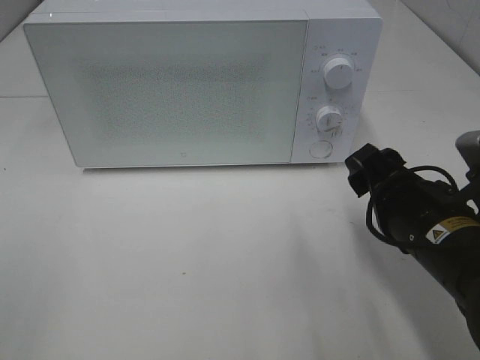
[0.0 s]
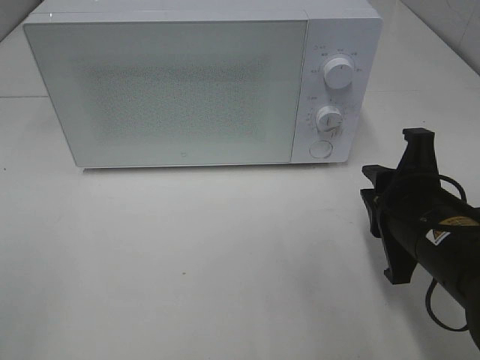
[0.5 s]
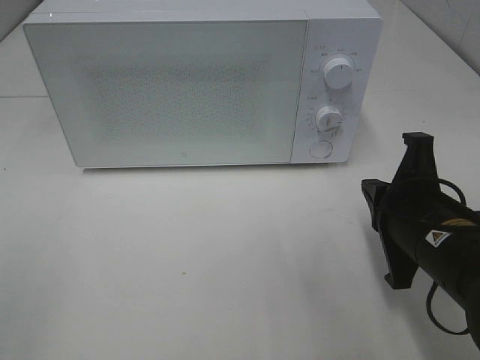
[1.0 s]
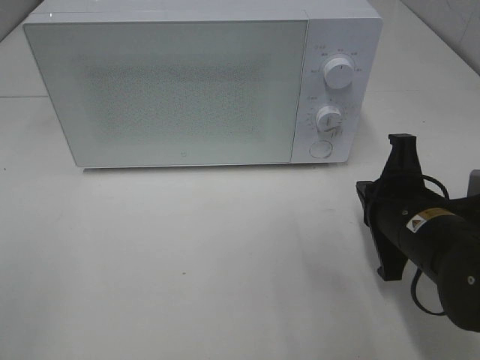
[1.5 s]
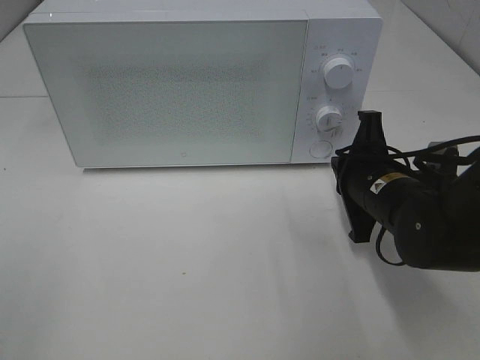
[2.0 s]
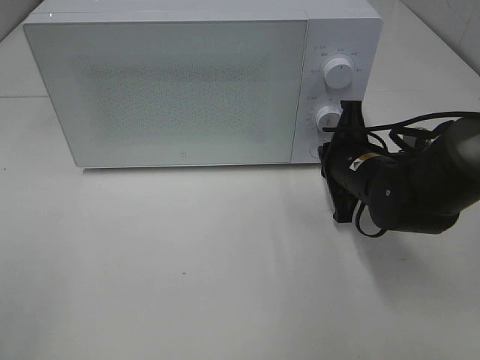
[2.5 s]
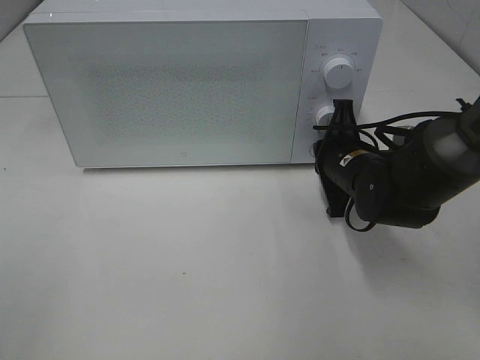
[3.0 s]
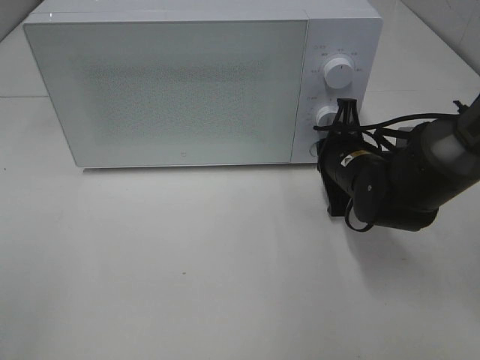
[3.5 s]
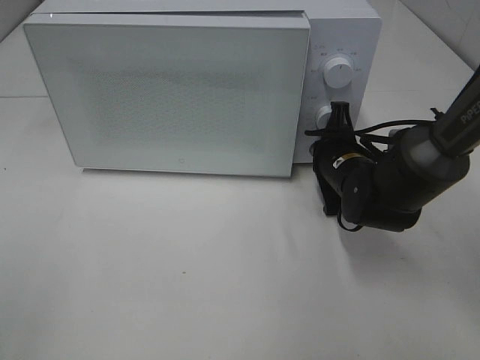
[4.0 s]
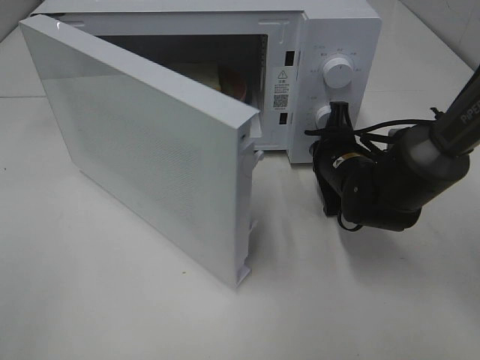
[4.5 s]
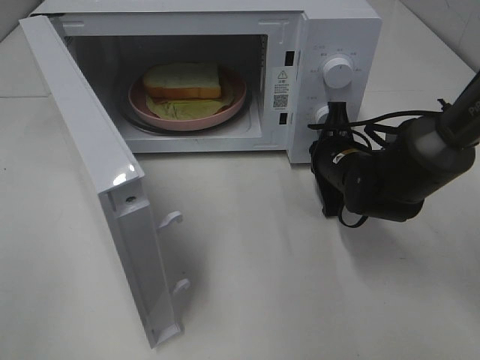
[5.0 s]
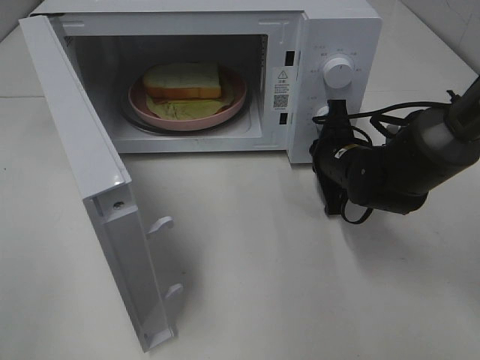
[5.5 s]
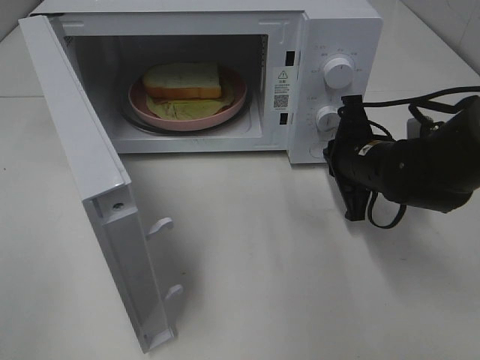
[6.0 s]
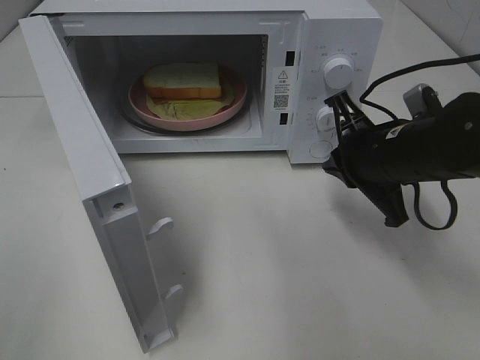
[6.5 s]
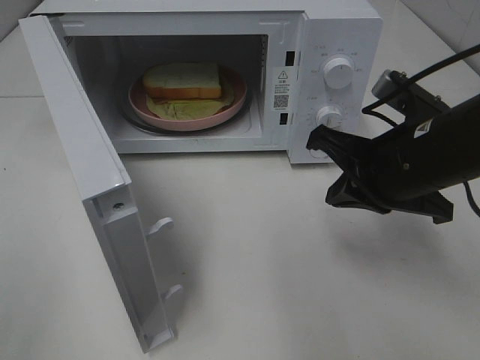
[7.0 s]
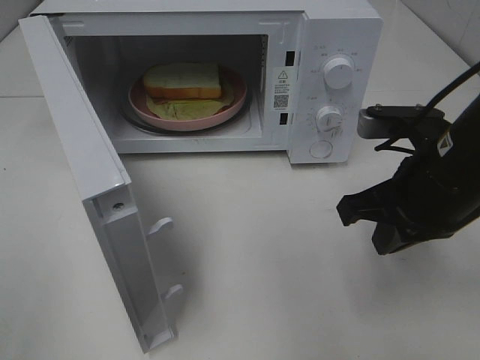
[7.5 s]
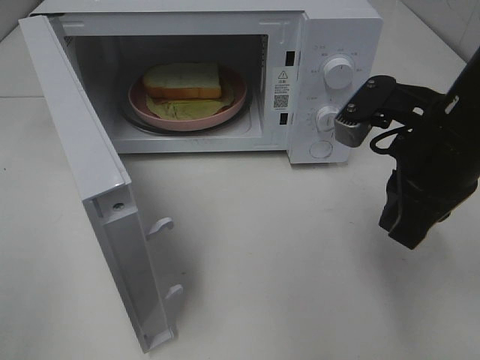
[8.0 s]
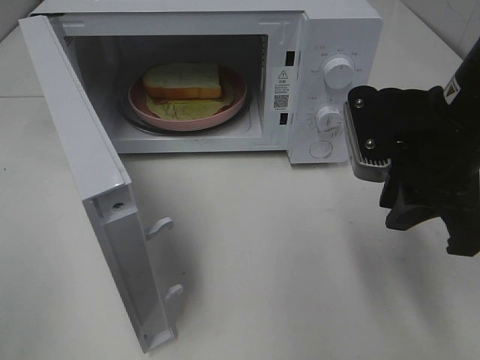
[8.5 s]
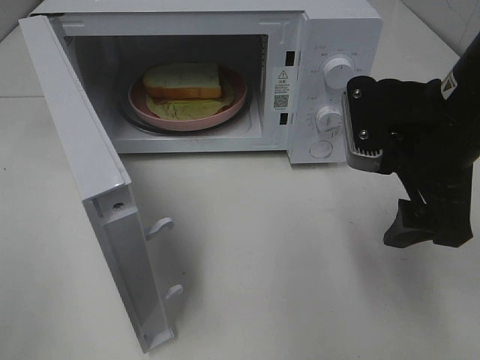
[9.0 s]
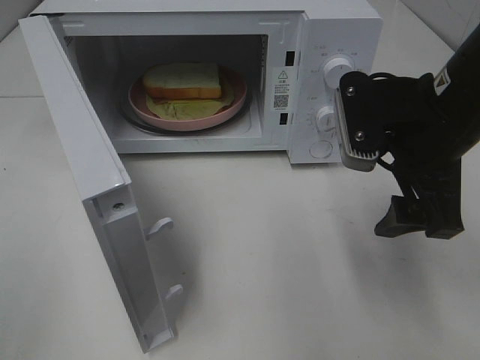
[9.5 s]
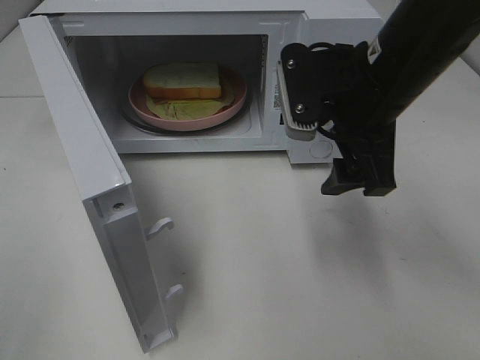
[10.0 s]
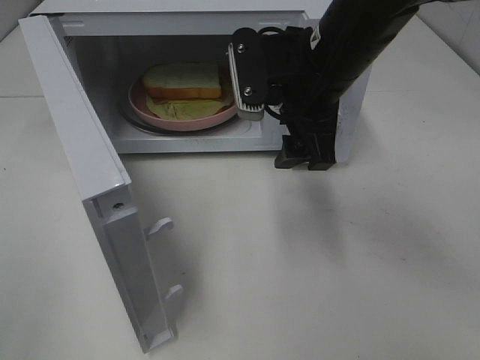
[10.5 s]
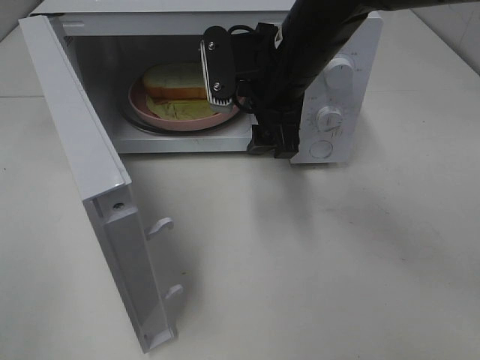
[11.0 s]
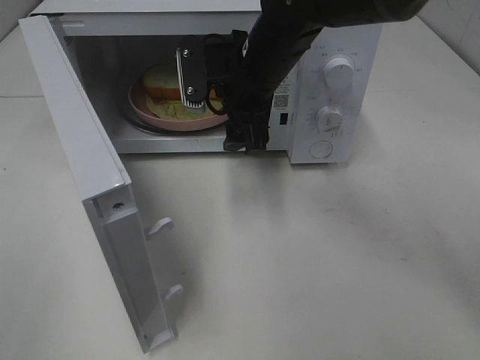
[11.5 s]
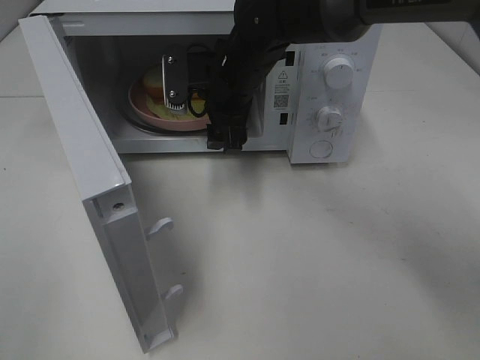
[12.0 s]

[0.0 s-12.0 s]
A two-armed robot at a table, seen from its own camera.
Task of the whole recording: Heat Sandwich.
Step, 0.0 to 6.0 s: Right hand: press the switch.
0.0 to 2.0 s: The right gripper travels forward by roughly 10 cm, and closes up.
2.0 to 4.0 s: The right gripper shifts about 5 cm forward.
6.0 to 8.0 s: The right gripper travels upward and backward by some 15 cm.
8.0 to 10.0 s: The right gripper moves to the left, roughly 5 cm, and opens up.
10.0 to 12.0 s: The right gripper moves forward, to the left and downward, roughly 20 cm.

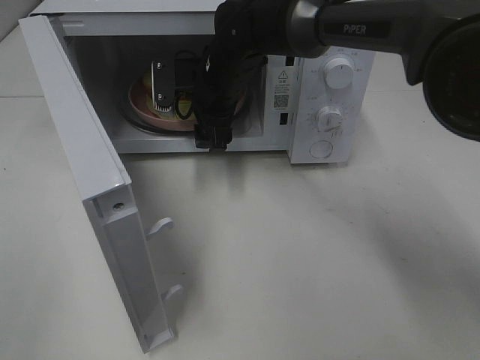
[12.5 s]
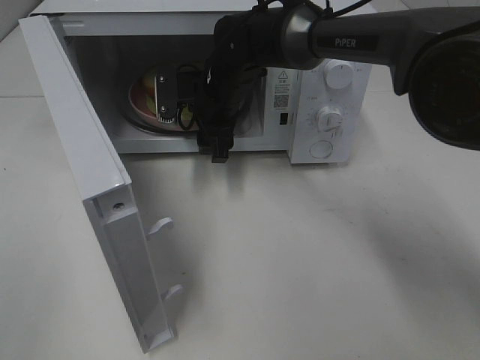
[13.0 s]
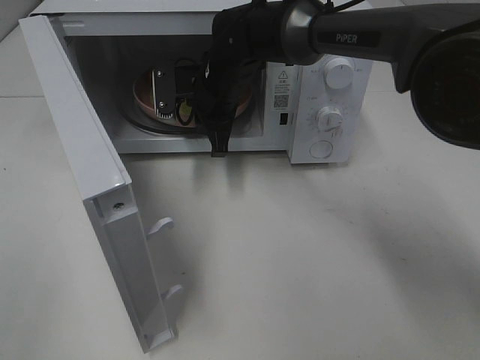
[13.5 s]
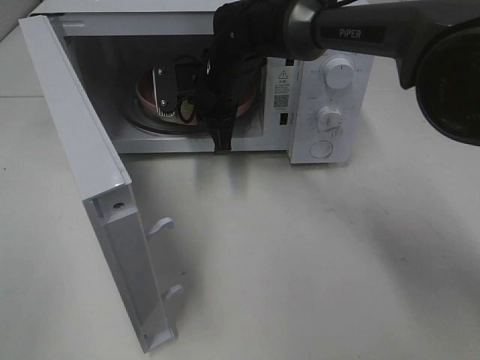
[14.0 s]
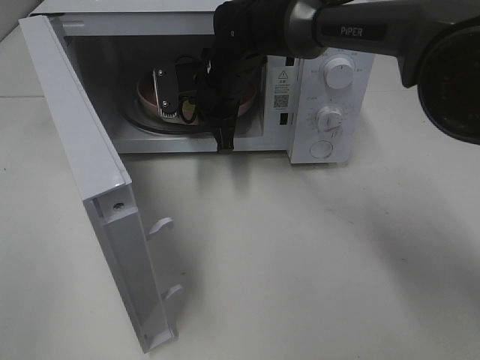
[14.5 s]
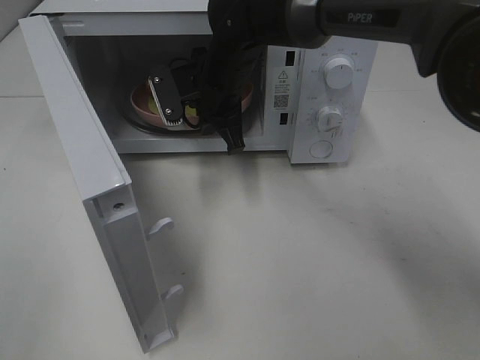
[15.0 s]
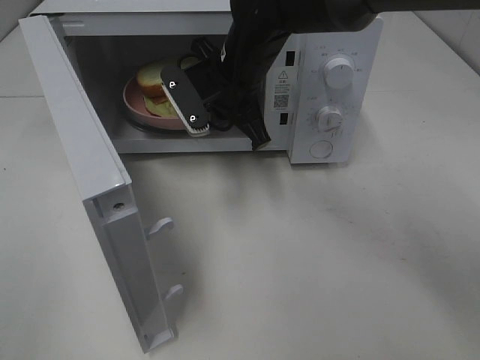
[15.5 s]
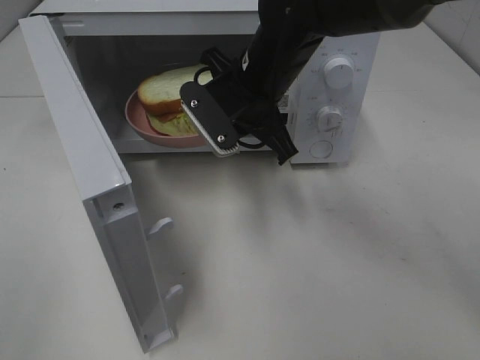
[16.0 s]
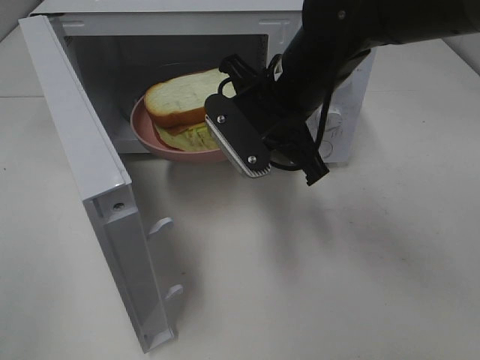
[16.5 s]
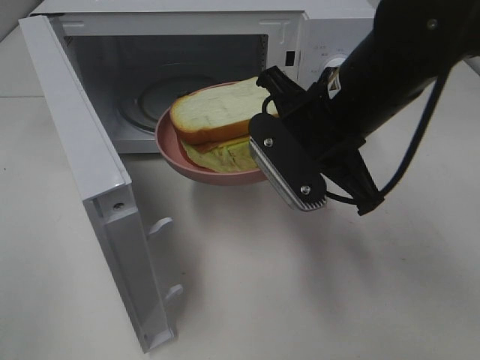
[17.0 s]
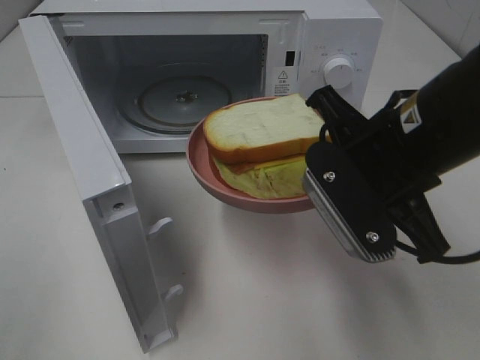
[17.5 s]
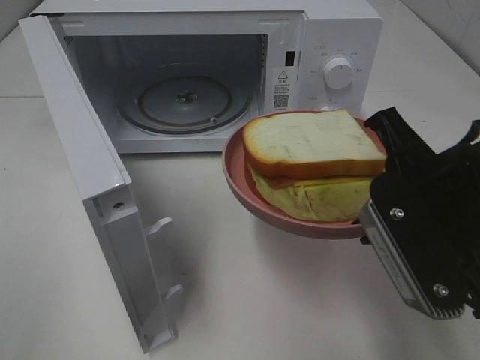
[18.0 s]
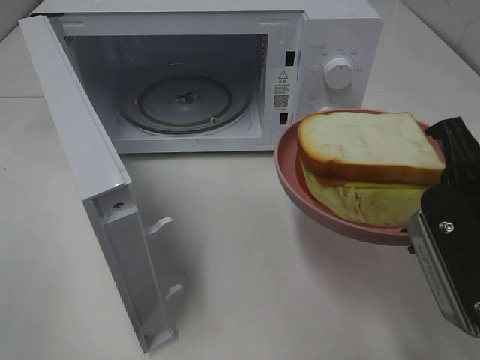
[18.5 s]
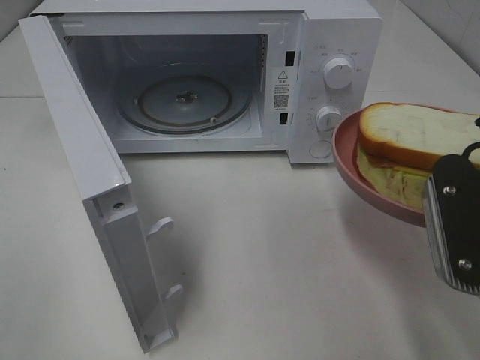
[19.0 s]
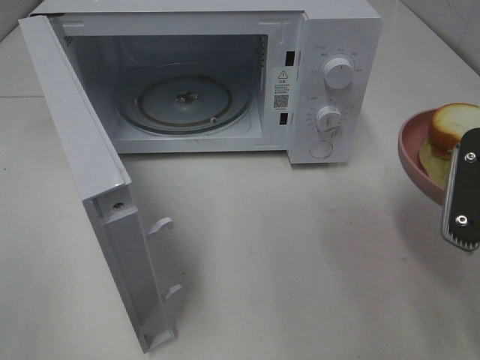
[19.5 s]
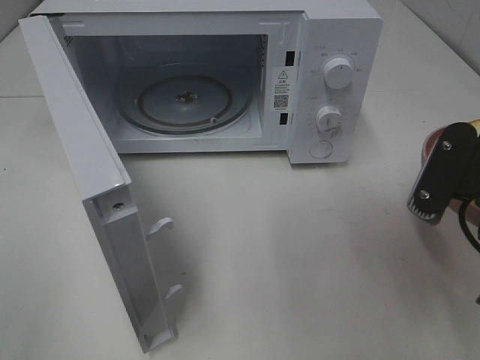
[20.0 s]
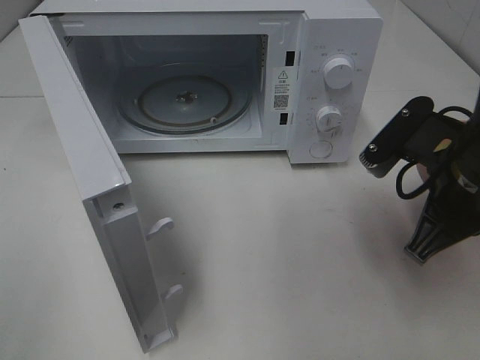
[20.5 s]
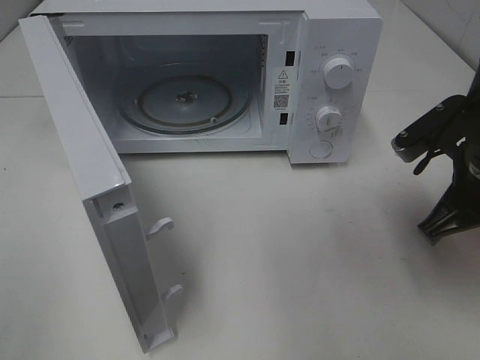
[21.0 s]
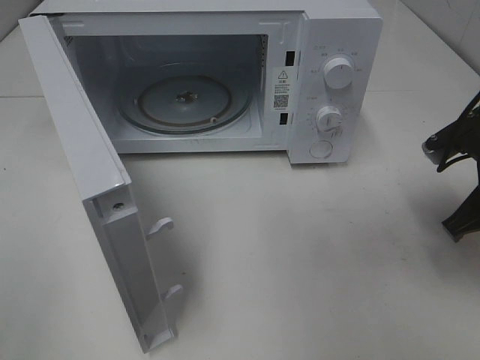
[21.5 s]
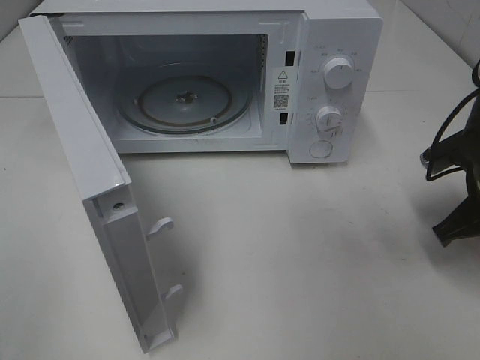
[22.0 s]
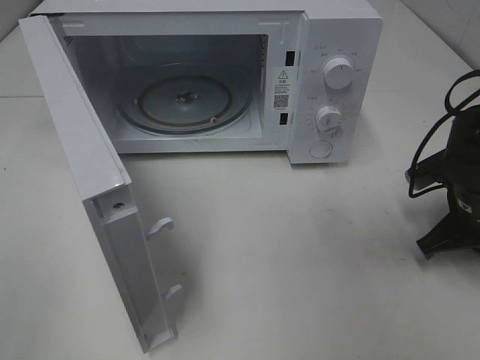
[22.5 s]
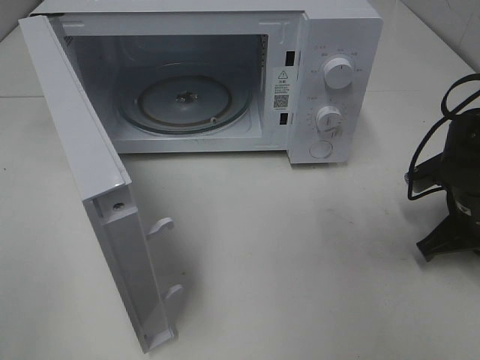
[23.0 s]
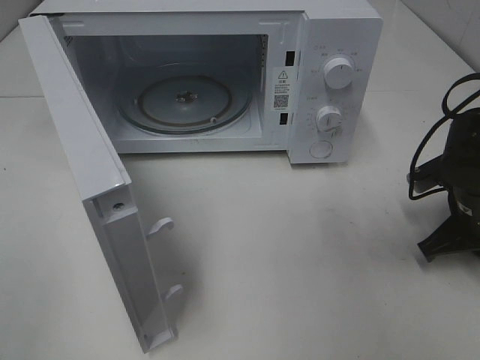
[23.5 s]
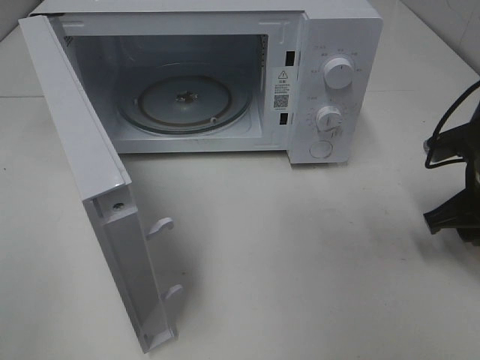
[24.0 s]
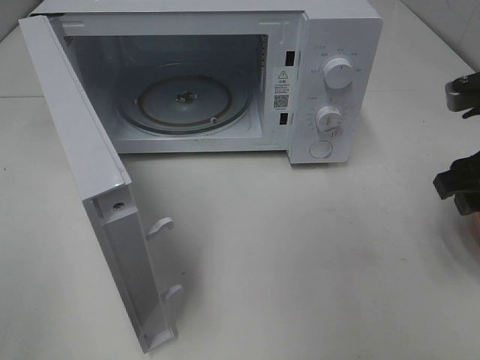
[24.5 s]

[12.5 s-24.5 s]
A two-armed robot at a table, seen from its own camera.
Task of the whole recording: Heat Sandwich.
12.5 to 14.5 s: The right gripper closes its fingers.
14.5 to 16.5 s: The right gripper shifts some 15 cm backward, to the right and upward.
16.5 to 18.5 s: The right gripper goes approximately 20 cm backward and to the right.
18.5 to 20.5 s: The right gripper goes some 5 cm forward.
20.5 to 22.5 s: The right gripper heads downward, to the right and forward, covering approximately 15 cm.
22.5 to 24.5 s: The right gripper heads upward, covering about 15 cm, and opens its fingers.

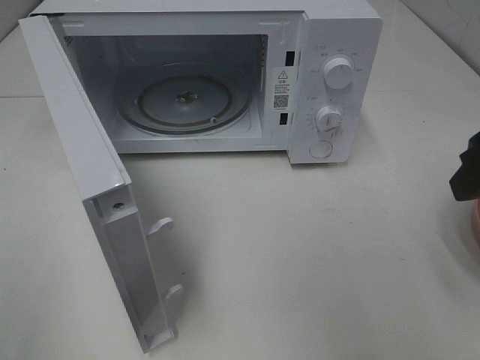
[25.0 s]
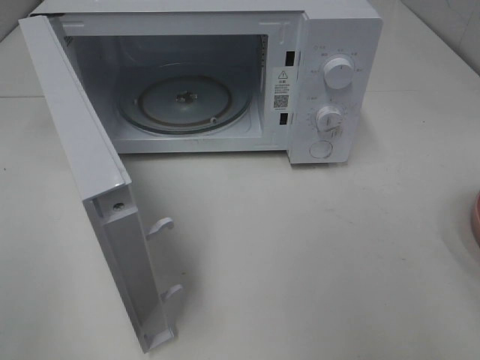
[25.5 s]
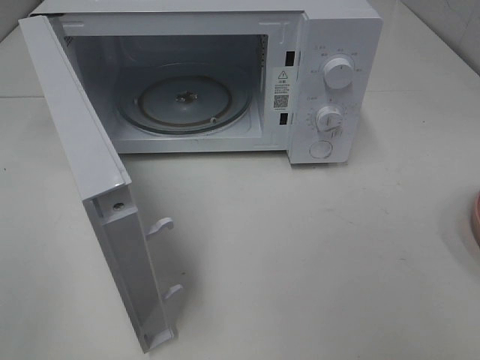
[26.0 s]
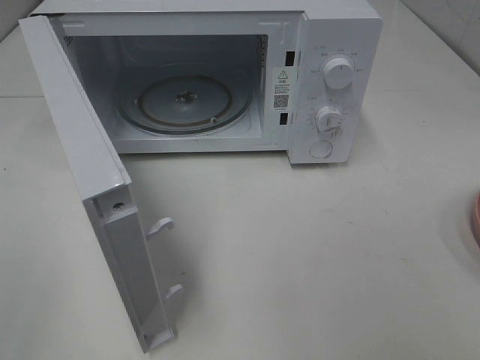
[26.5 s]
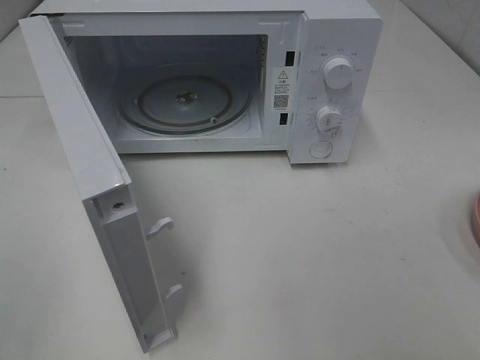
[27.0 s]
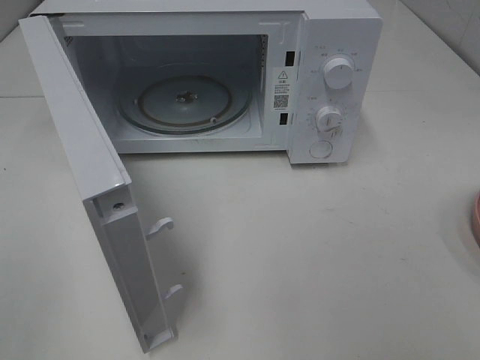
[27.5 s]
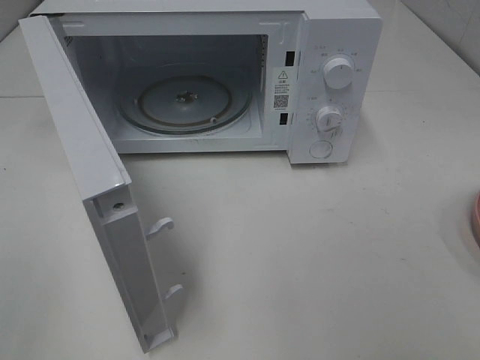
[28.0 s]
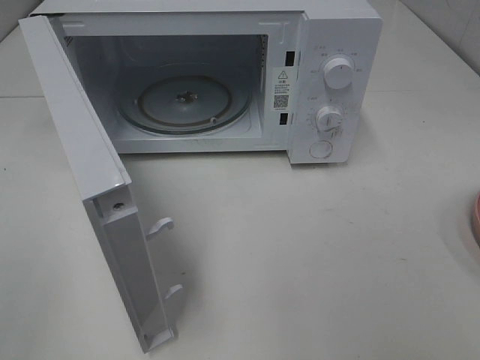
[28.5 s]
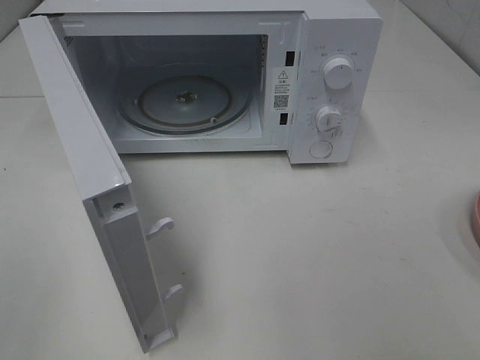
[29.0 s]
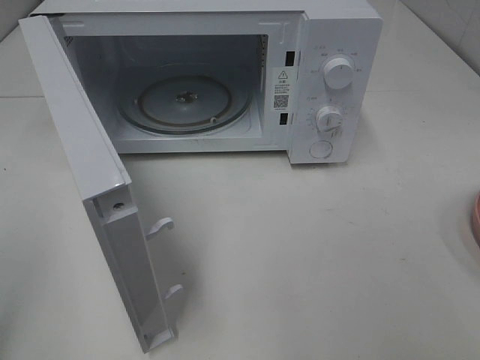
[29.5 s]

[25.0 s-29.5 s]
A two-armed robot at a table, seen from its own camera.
Task of the whole recording: Heat Sandwich.
25.0 to 27.0 s: The right gripper is displaced backward by roughly 20 cm.
